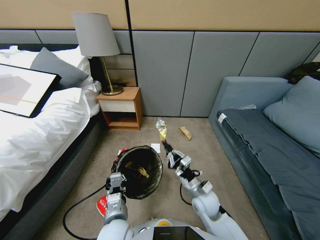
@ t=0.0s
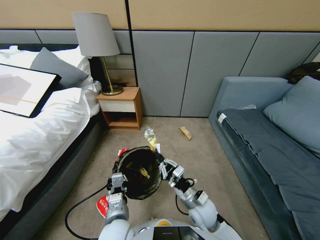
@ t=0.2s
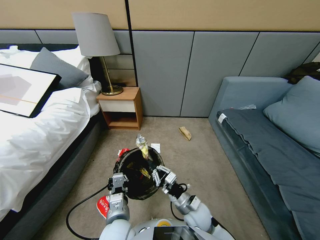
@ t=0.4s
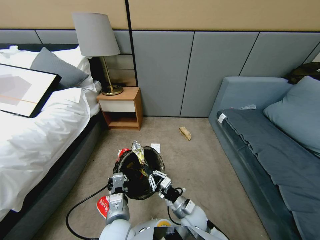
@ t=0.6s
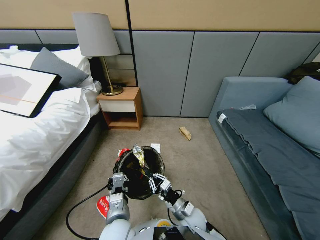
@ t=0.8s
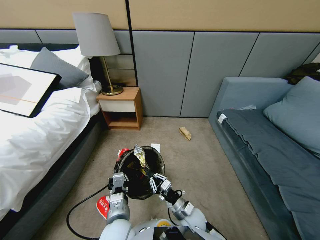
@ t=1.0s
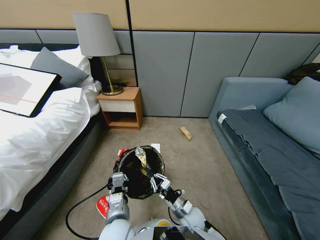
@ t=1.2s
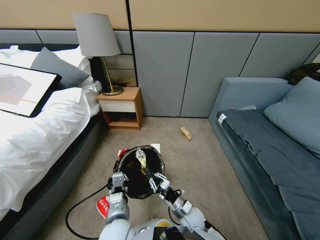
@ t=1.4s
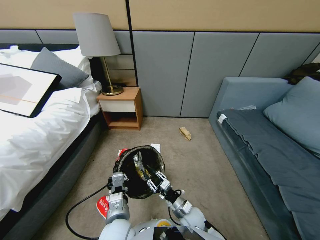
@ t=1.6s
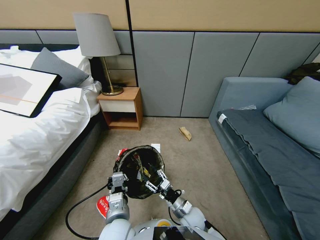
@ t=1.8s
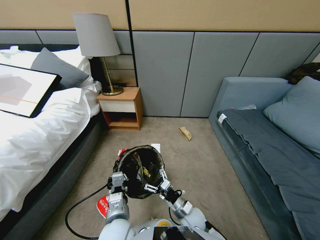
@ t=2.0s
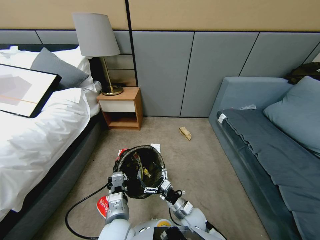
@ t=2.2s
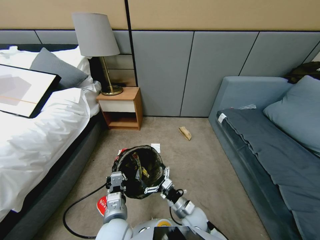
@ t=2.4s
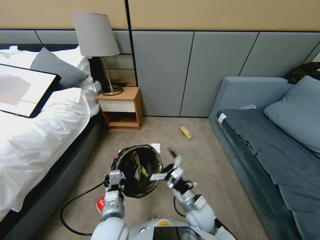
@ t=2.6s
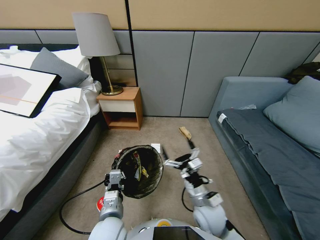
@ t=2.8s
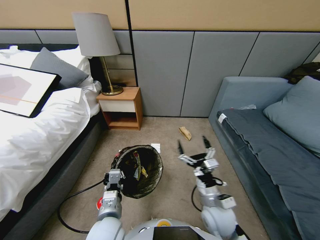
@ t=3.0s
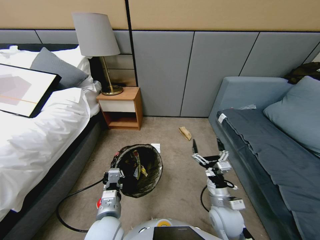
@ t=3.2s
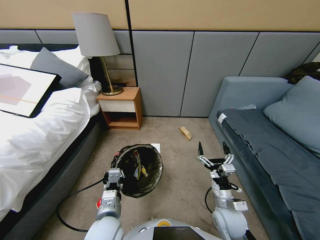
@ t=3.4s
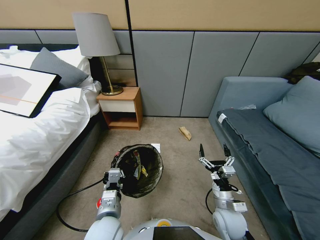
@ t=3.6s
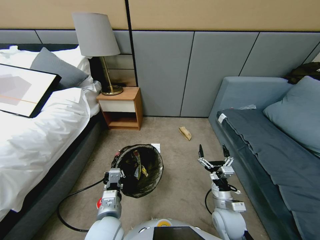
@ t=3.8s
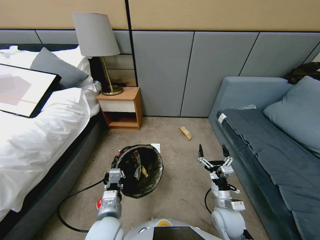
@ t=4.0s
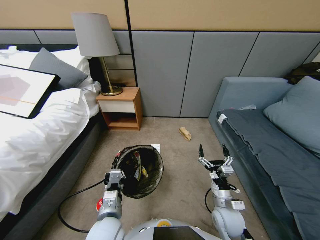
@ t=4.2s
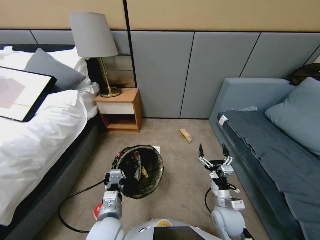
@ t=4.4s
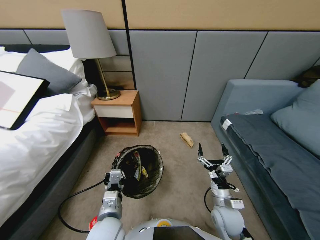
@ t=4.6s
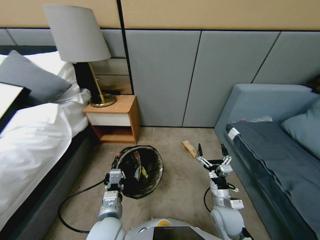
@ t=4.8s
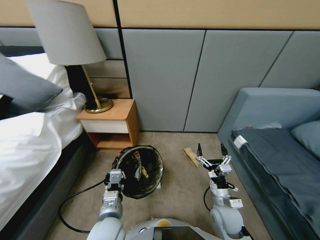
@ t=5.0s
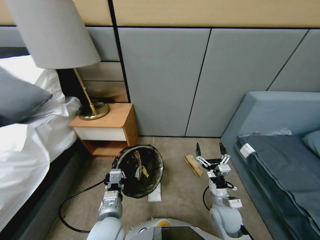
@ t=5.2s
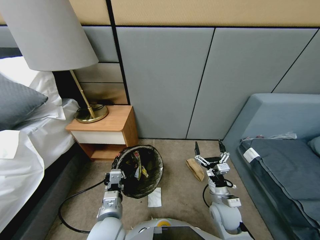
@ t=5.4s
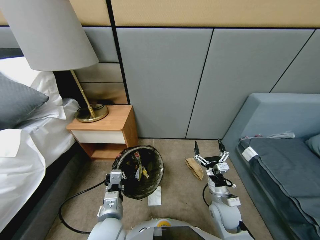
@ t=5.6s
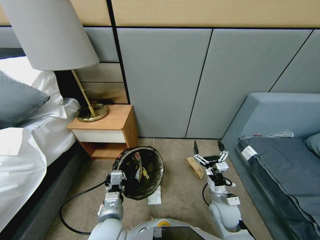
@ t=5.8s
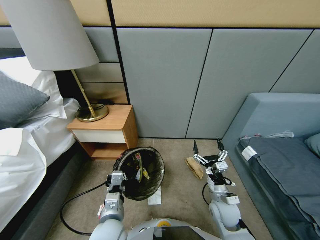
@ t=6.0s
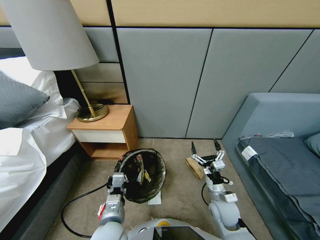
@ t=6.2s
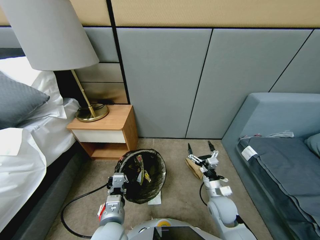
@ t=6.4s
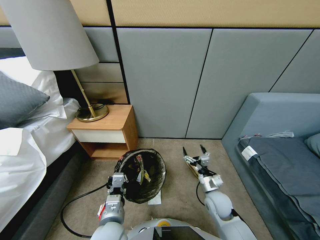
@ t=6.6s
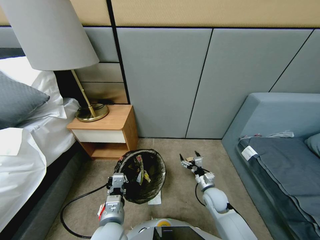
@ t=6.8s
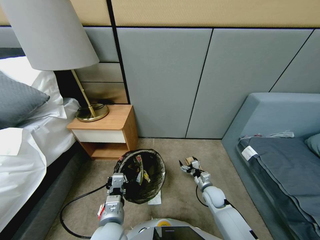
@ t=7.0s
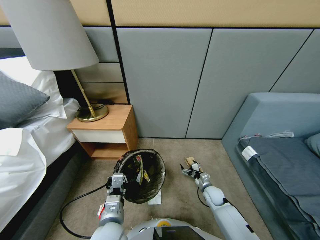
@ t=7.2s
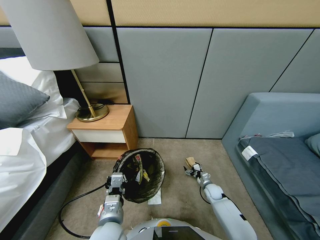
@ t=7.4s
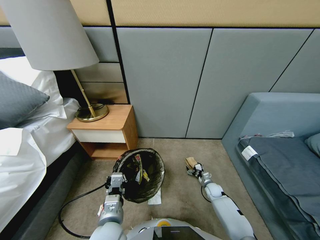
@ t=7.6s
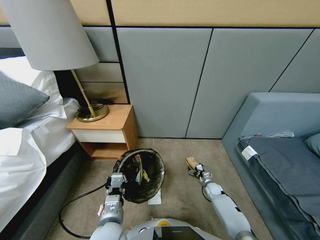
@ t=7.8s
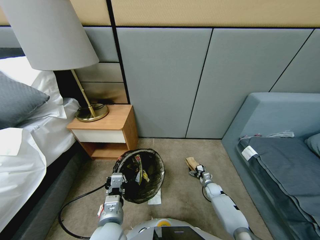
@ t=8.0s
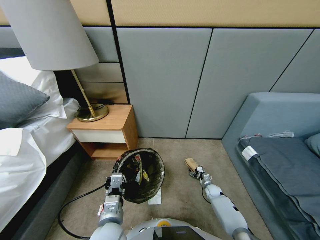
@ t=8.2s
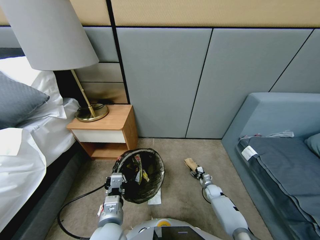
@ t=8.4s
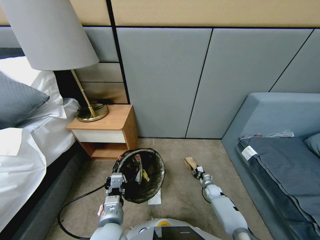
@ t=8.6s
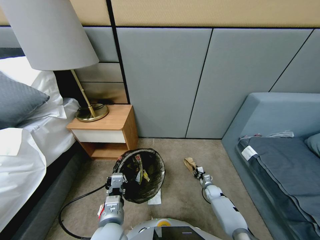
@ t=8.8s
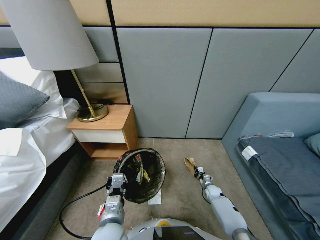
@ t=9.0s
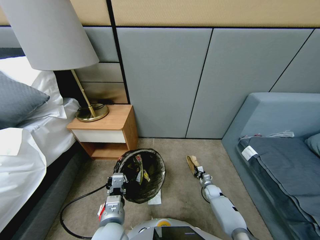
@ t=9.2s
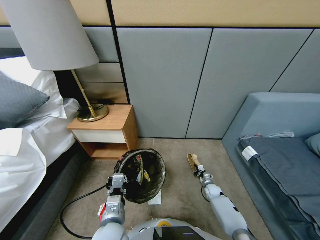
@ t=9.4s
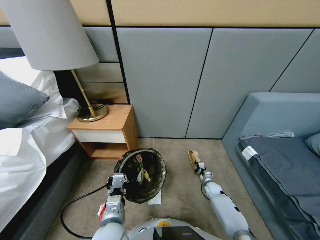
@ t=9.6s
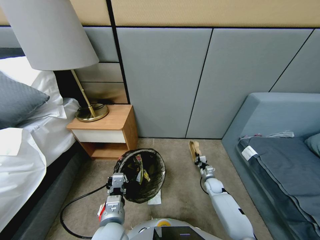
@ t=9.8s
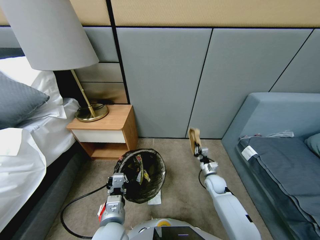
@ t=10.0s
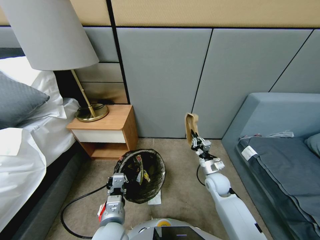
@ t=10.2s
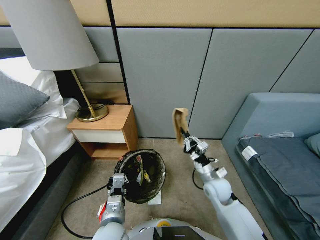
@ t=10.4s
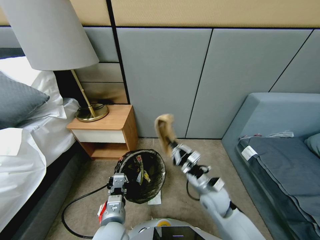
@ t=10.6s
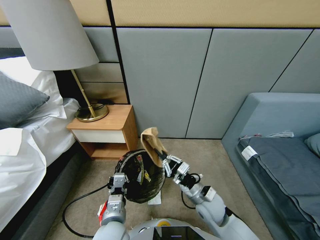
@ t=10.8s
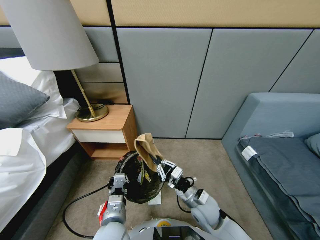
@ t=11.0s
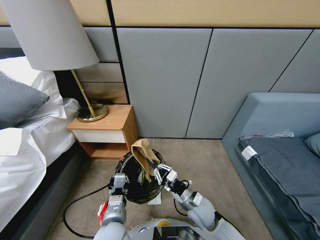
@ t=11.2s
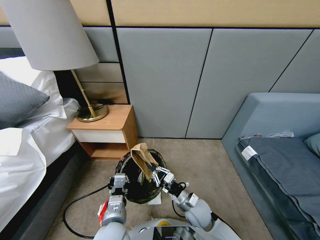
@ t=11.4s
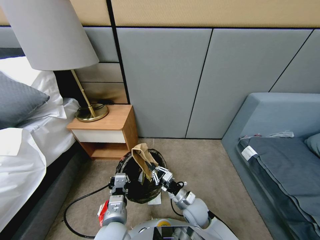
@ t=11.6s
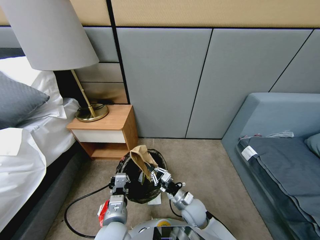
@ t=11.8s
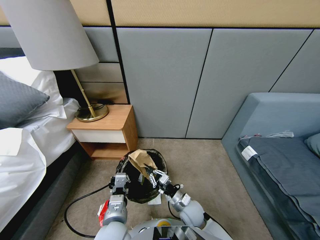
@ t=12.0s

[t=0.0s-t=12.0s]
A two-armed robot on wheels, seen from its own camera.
Task of the whole recording: Pick up the trash bin, then pick up the garbage from the floor and place it into the trash bin.
t=0.0s to t=1.6s: The right gripper shifts about 10 cm downward, and opens up.
t=1.6s to t=3.0s: The right gripper moves upward and to the right, roughly 15 cm, and opens up.
t=3.0s to t=4.4s: The grippers make only small movements.
t=6.0s to t=7.6s: The right gripper goes roughly 25 cm downward, forward and to the right.
t=7.6s to t=9.0s: The right gripper closes.
t=9.0s to t=10.4s: The right gripper heads upward and to the left, covering approximately 35 cm.
t=10.4s to t=12.0s: The right gripper shifts roughly 15 cm downward and to the left.

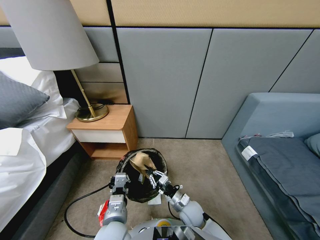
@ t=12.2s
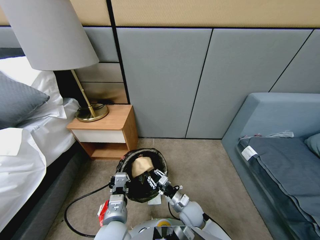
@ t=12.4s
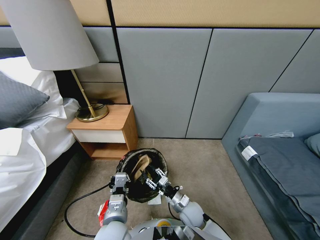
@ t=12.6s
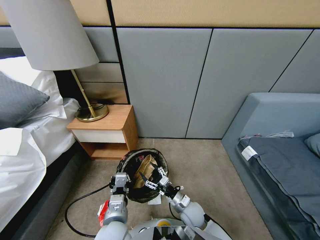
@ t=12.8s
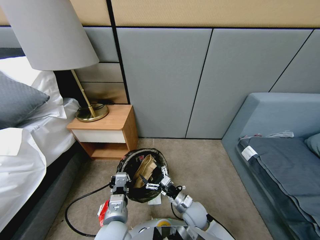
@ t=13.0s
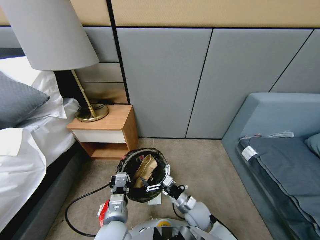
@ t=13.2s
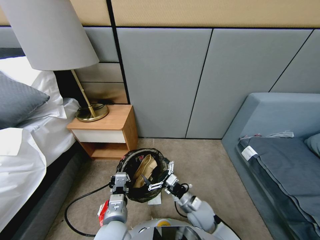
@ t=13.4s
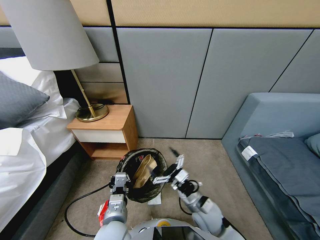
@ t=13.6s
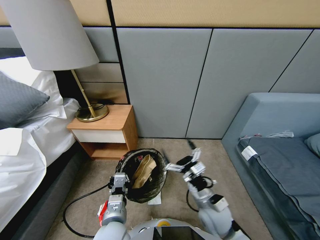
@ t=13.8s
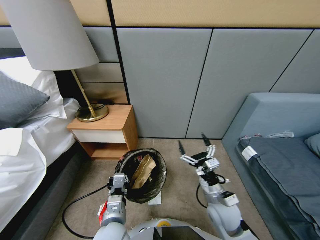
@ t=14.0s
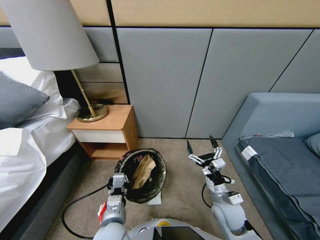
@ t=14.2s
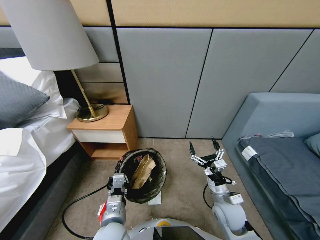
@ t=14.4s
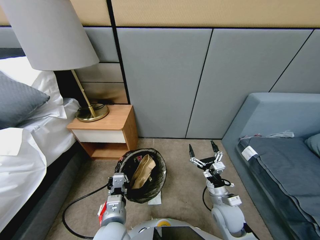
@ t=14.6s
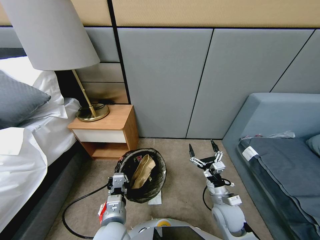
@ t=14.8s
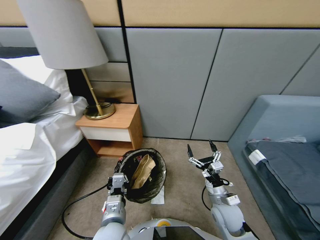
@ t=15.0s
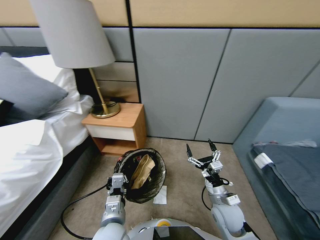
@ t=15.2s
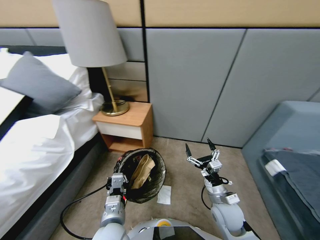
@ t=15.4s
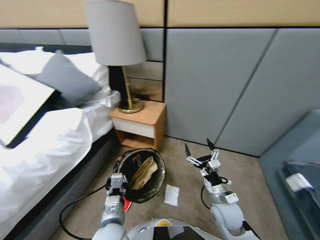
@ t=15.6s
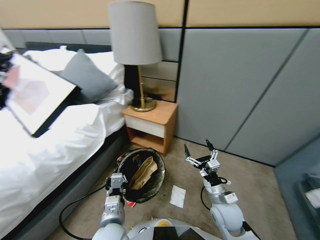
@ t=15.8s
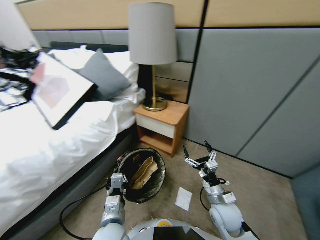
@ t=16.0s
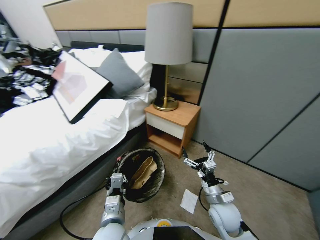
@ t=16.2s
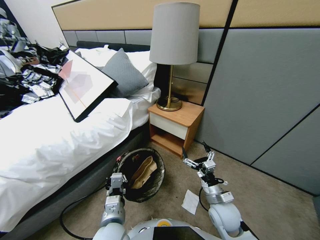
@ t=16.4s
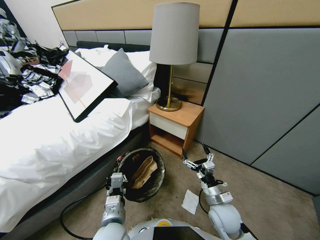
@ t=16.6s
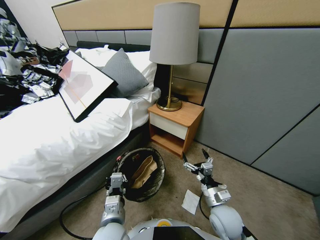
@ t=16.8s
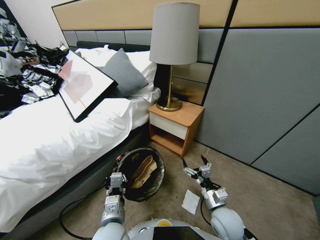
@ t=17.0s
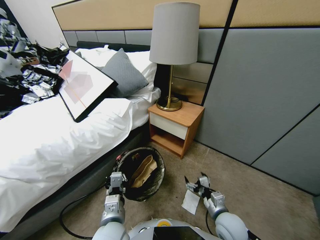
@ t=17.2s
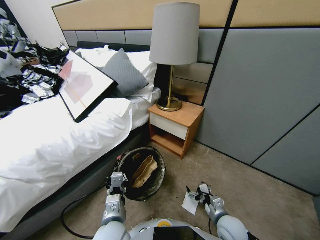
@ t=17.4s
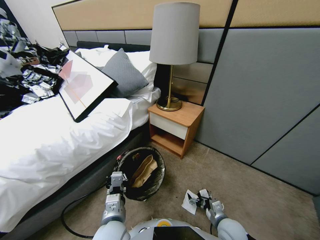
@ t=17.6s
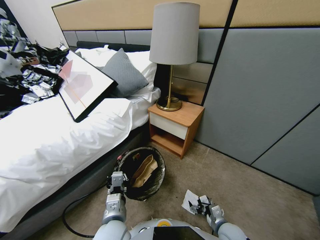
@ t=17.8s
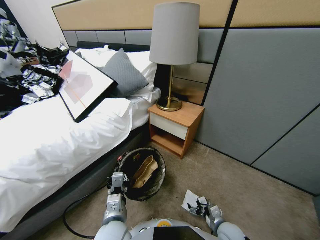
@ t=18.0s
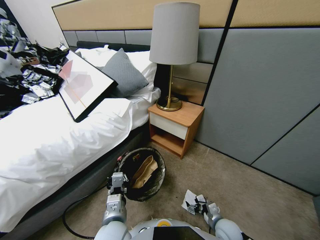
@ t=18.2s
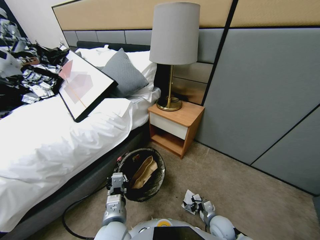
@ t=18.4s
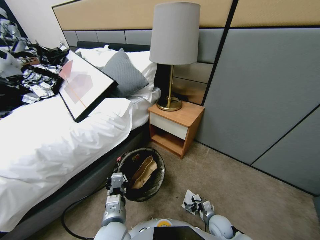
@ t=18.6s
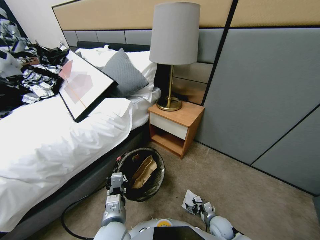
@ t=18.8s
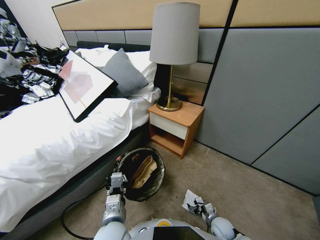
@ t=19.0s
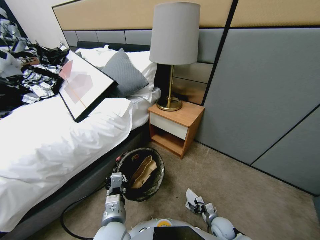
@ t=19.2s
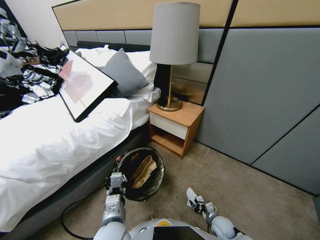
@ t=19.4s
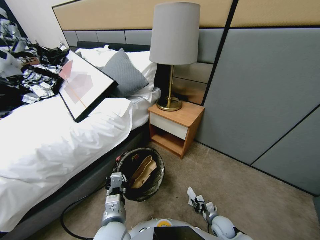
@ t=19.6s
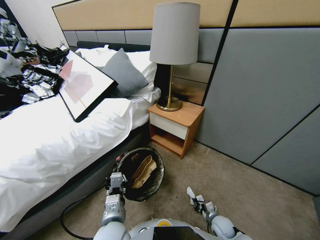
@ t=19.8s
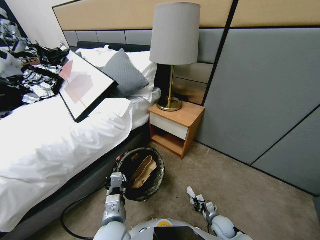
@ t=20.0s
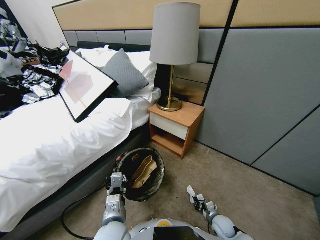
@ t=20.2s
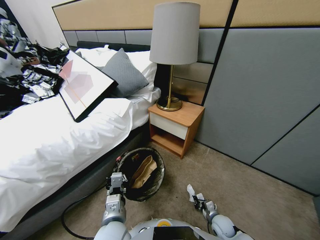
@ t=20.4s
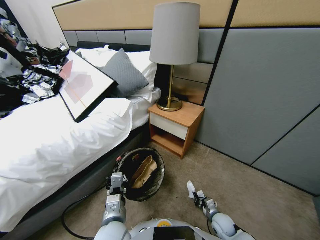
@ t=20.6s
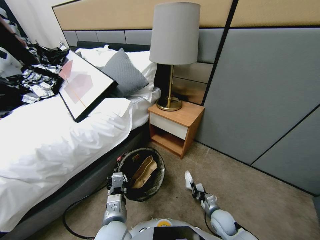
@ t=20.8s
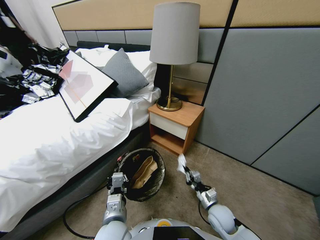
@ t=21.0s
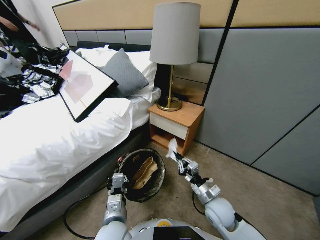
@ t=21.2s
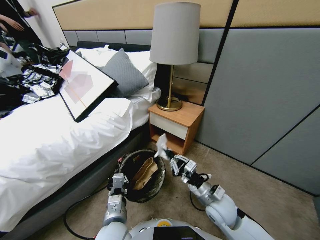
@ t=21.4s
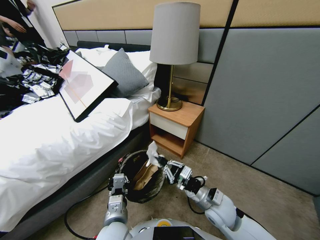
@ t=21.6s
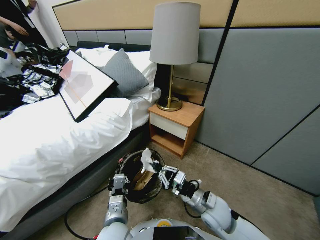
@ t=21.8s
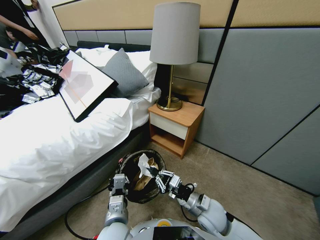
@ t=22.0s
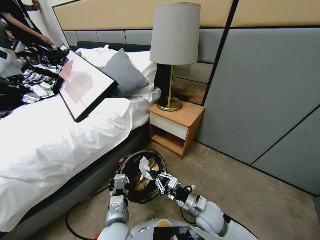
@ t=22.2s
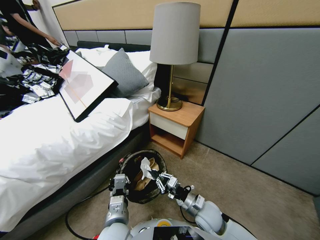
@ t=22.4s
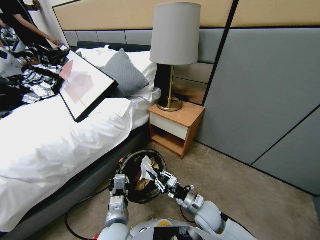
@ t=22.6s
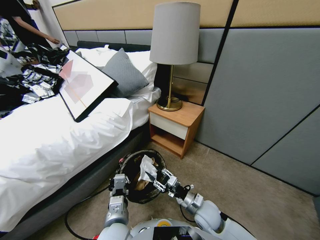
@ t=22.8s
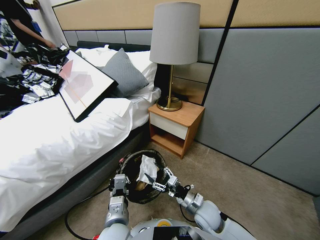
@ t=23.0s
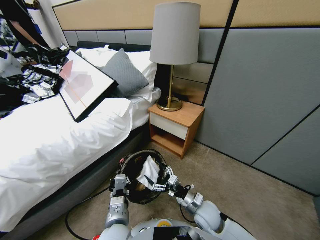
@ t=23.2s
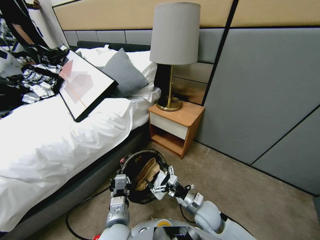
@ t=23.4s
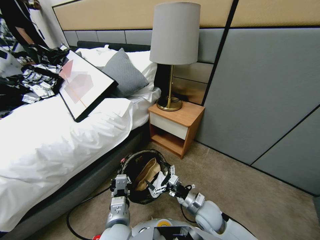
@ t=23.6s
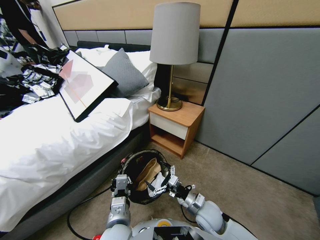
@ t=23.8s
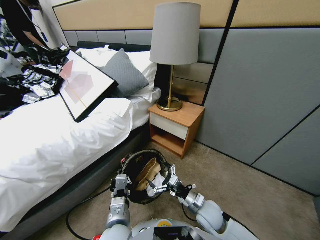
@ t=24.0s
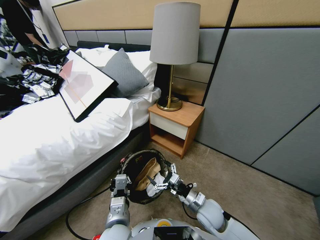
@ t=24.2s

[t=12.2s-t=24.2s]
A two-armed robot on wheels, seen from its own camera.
Task of the whole recording: Pick up the trash bin, then pick up the garbage from the floor and place it into the trash bin.
t=12.2s to t=13.8s: The right gripper moves upward and to the right, about 15 cm, and opens its fingers.
t=16.6s to t=18.2s: The right gripper heads downward, covering some 15 cm.
t=18.2s to t=19.8s: The right gripper moves downward, about 5 cm, and closes its fingers.
t=19.8s to t=21.2s: The right gripper travels upward and to the left by about 25 cm.
t=21.2s to t=22.6s: The right gripper shifts approximately 5 cm downward, and opens up.
t=22.6s to t=24.2s: The right gripper opens.
